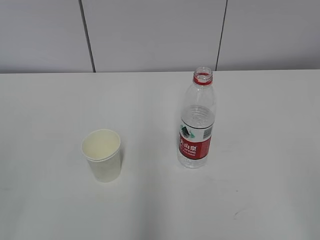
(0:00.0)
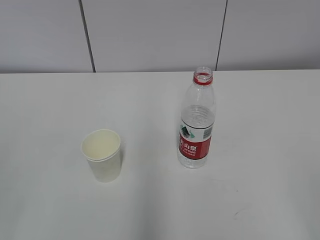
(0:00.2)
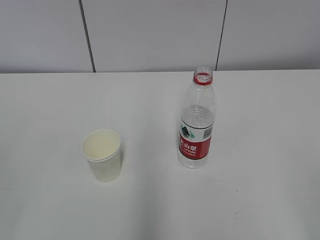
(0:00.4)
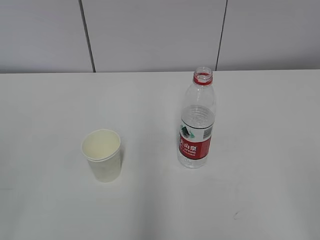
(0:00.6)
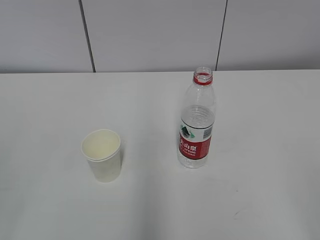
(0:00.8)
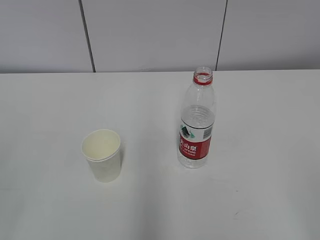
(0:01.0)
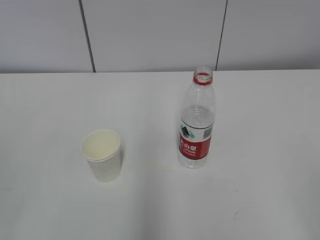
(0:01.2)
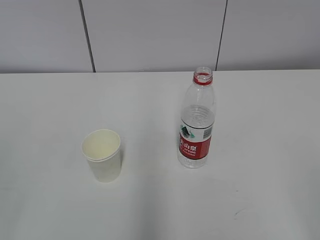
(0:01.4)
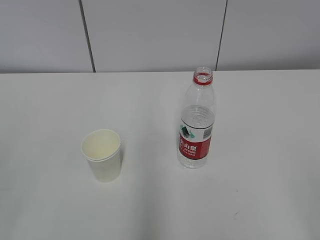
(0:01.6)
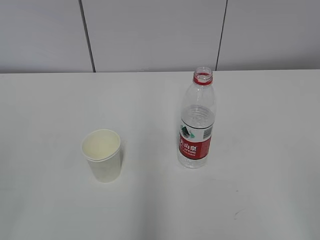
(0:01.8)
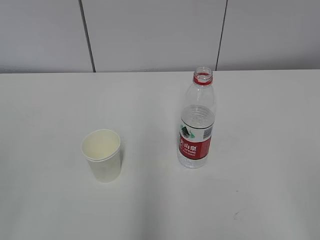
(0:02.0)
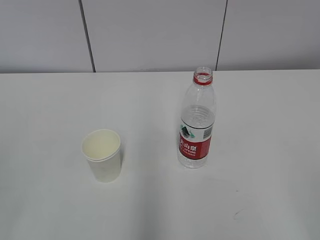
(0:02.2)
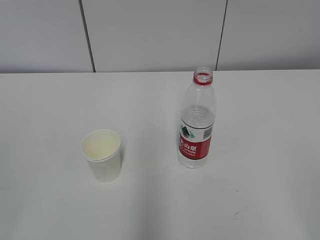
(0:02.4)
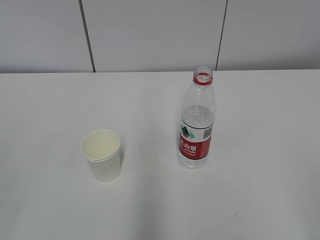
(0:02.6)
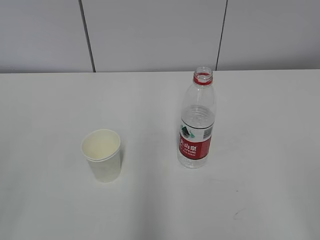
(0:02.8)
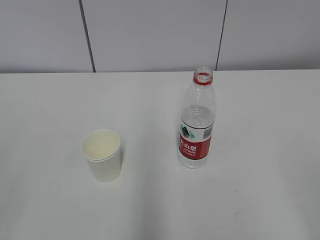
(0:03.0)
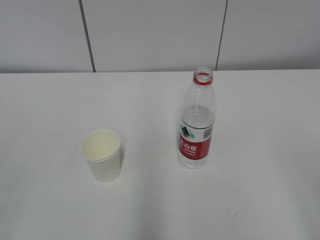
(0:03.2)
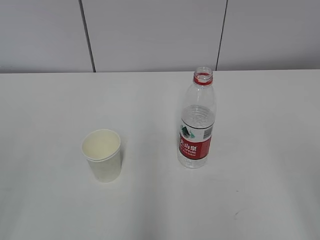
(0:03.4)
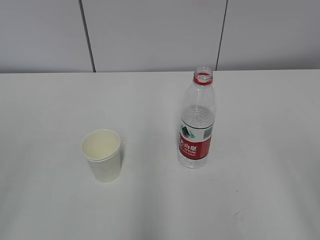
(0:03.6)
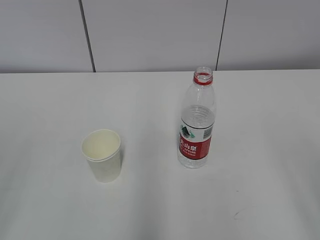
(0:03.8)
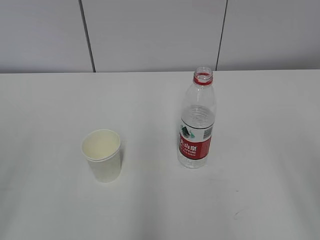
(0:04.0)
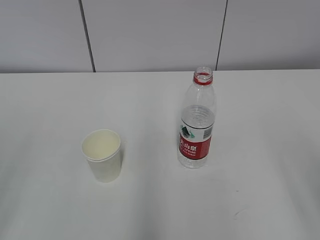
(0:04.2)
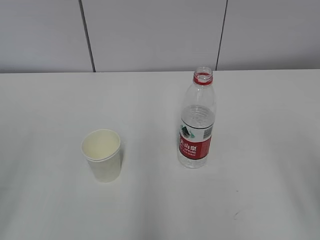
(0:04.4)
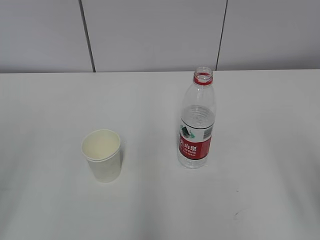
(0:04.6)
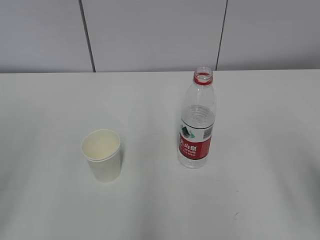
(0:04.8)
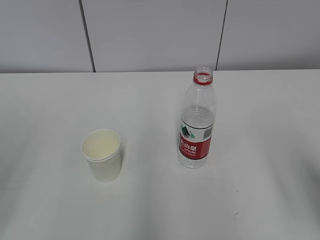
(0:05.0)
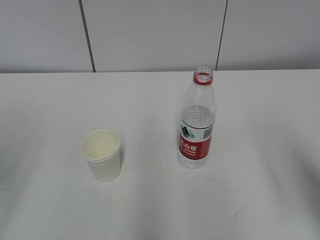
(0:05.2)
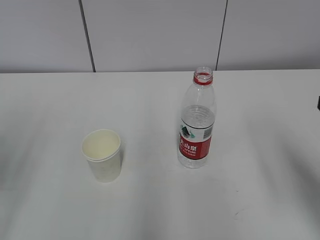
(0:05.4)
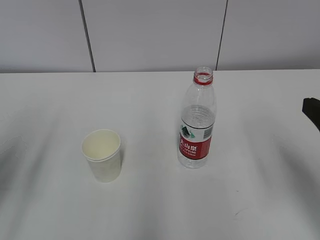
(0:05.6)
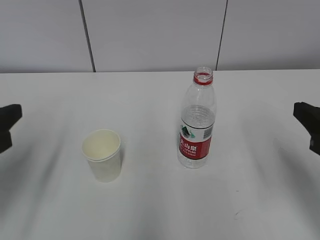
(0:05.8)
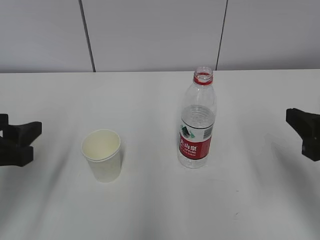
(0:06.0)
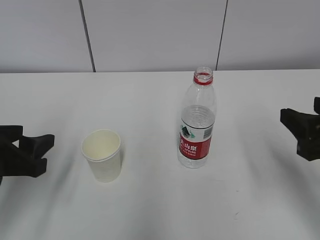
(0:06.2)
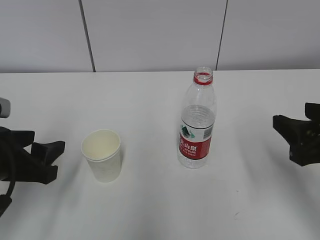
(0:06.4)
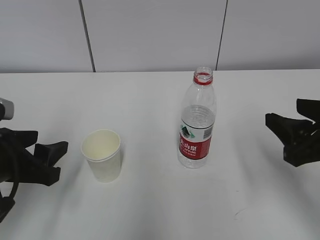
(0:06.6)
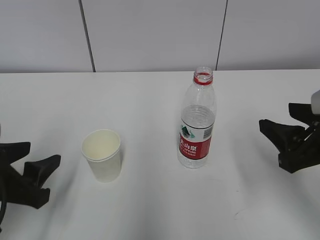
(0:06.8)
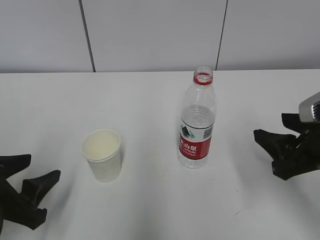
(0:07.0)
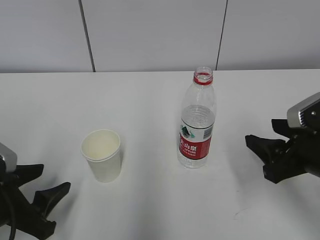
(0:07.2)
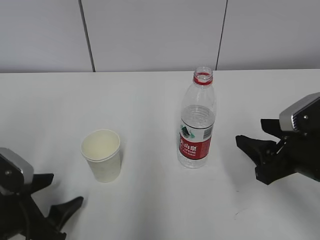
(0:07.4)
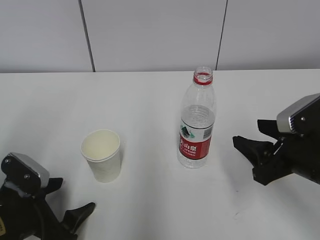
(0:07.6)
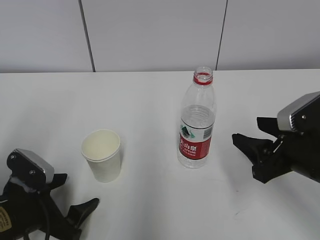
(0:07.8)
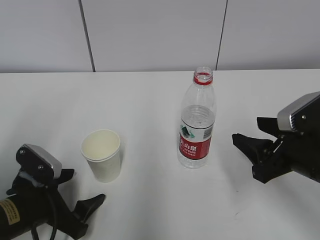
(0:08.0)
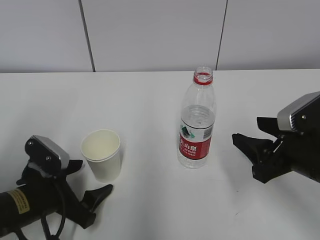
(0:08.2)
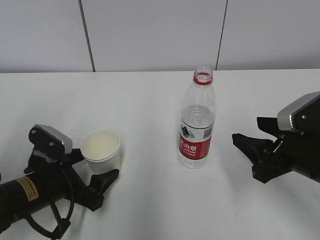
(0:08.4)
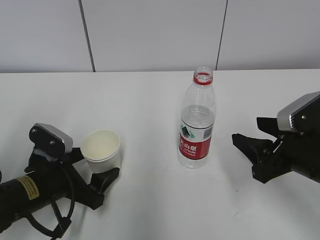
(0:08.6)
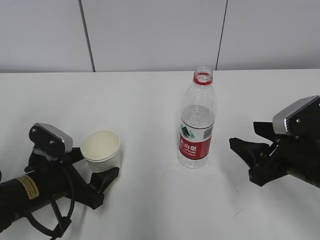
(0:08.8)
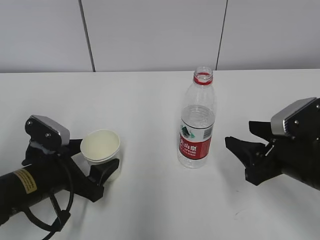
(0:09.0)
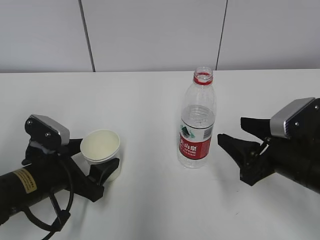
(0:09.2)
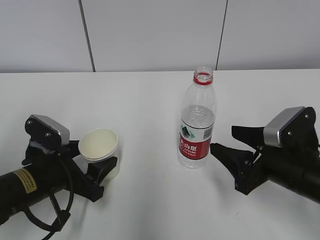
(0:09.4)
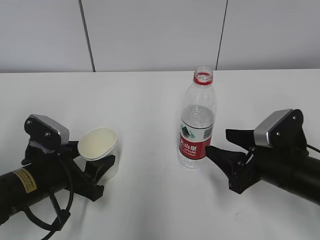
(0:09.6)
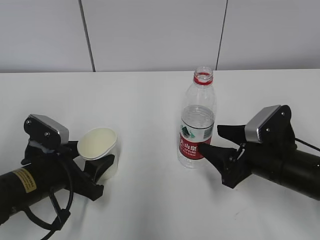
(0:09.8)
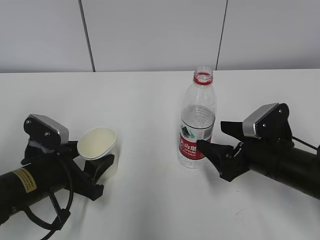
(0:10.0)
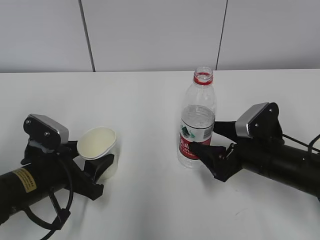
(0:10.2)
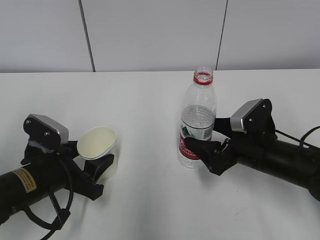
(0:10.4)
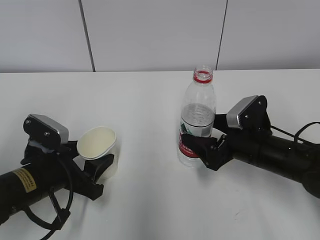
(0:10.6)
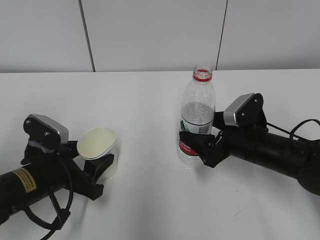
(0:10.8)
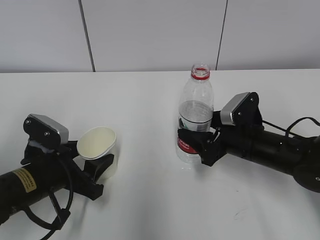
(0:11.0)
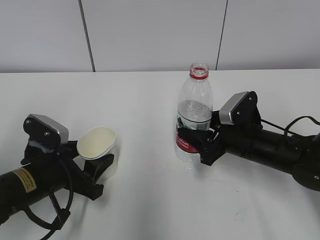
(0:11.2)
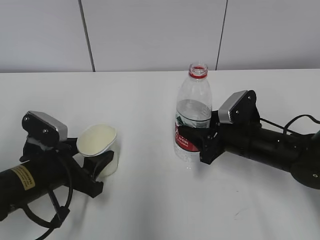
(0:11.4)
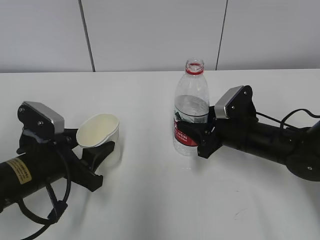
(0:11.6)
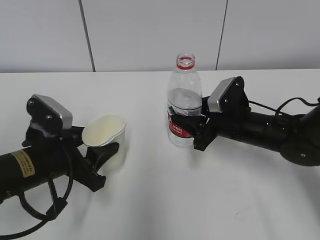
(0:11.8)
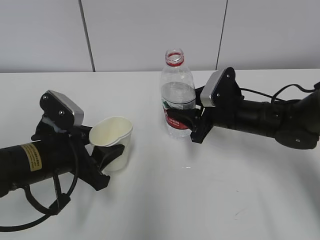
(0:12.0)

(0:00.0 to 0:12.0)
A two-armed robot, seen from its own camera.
Step, 0:00.0 - 0:09.4: Grab the paper cup with the left hand.
Step, 0:09.6 - 0:11.8: Lift the paper cup with the left hand.
0:04.4 - 0:06.0: Both grippers travel together forward and downward, about 15 cm.
0:06.0 - 0:07.6: The left gripper is displaced downward by about 15 cm, and opens its fingers; the right gripper goes approximately 5 cm downward.
0:07.6 - 0:09.0: The left gripper travels forward by some 5 cm.
0:09.0 - 0:10.4: The left gripper closes. Meanwhile the right gripper is displaced forward by about 5 cm, and opens up.
0:10.4 - 0:12.0: The right gripper travels forward by roughly 10 cm, and closes up.

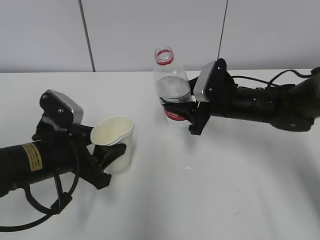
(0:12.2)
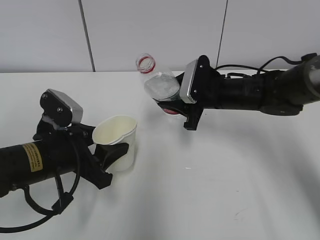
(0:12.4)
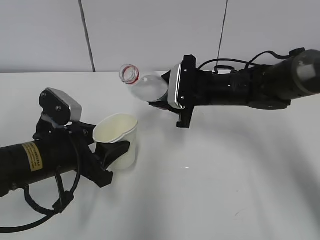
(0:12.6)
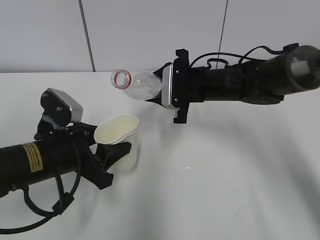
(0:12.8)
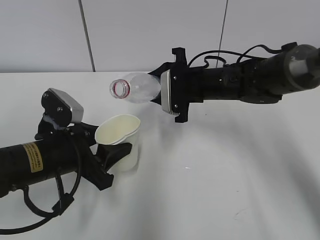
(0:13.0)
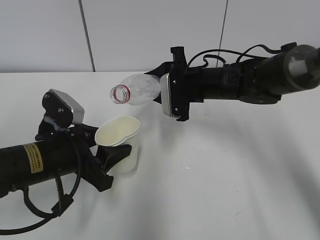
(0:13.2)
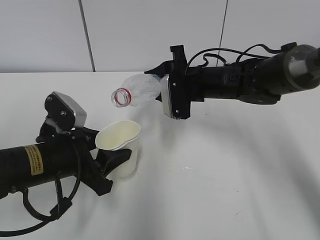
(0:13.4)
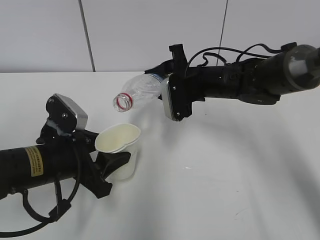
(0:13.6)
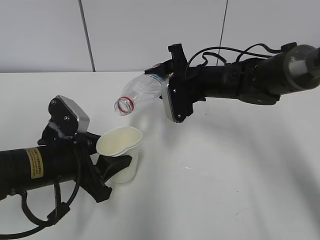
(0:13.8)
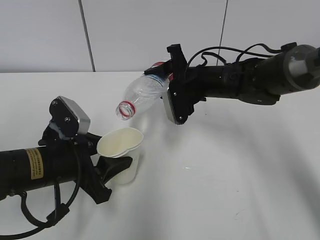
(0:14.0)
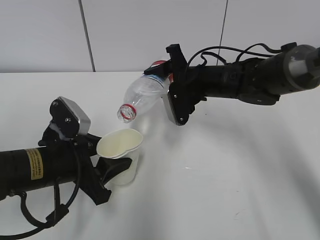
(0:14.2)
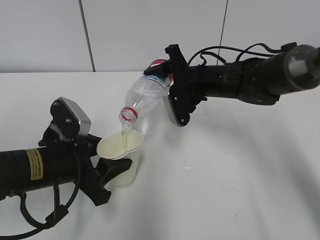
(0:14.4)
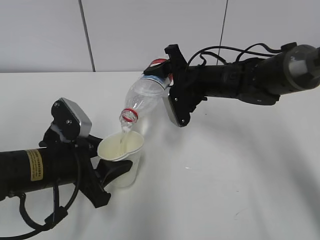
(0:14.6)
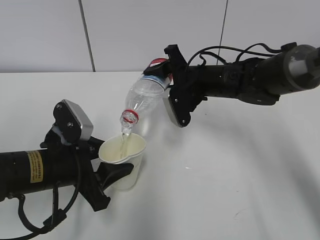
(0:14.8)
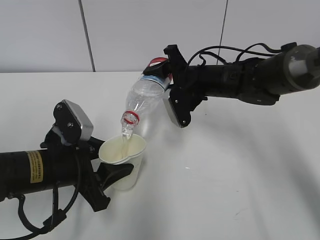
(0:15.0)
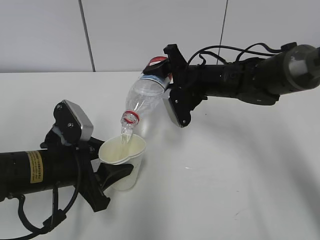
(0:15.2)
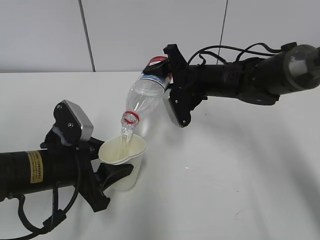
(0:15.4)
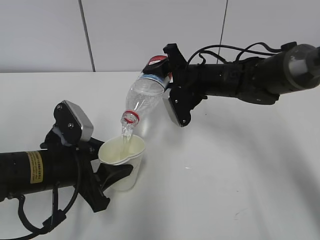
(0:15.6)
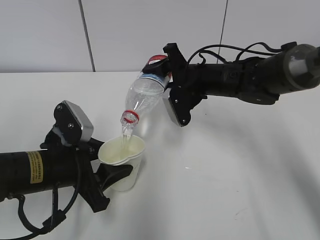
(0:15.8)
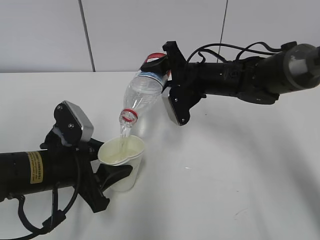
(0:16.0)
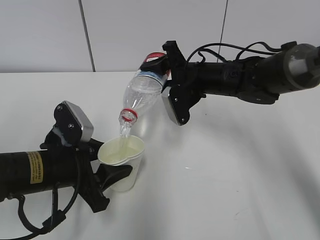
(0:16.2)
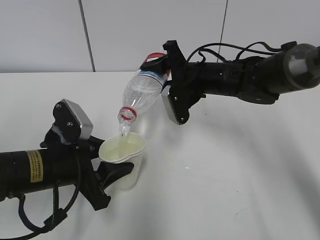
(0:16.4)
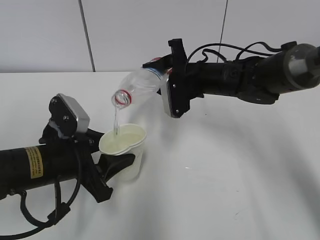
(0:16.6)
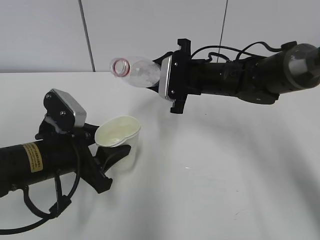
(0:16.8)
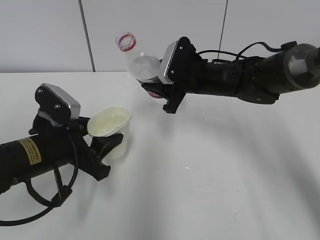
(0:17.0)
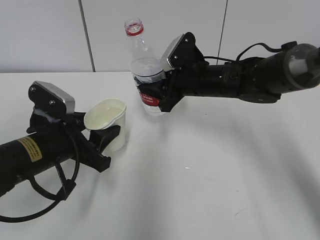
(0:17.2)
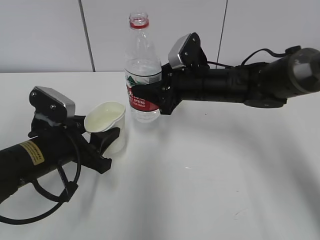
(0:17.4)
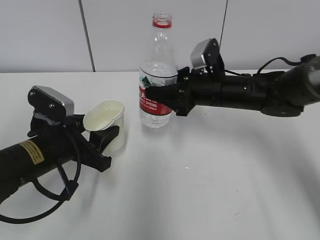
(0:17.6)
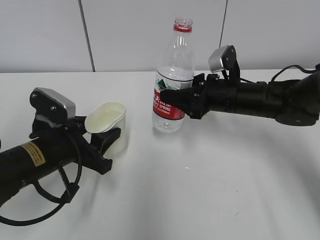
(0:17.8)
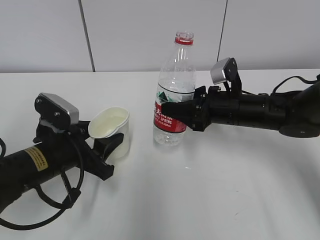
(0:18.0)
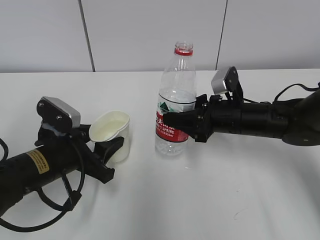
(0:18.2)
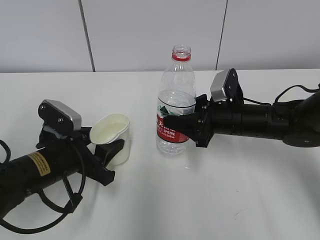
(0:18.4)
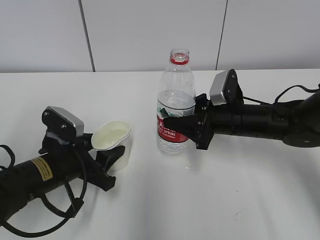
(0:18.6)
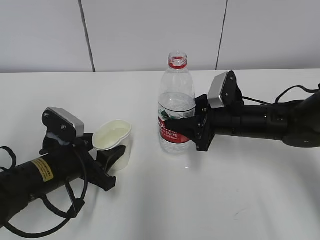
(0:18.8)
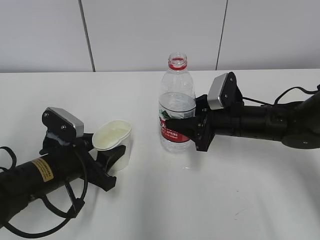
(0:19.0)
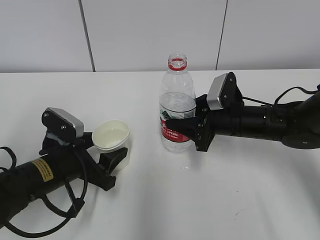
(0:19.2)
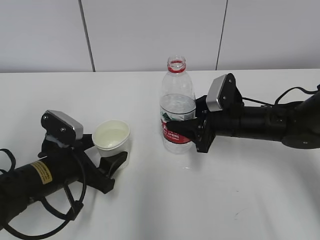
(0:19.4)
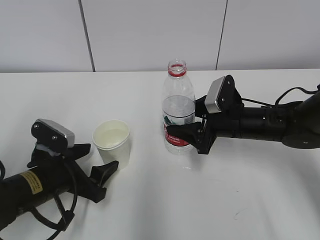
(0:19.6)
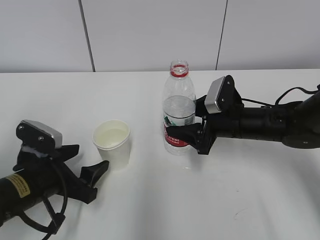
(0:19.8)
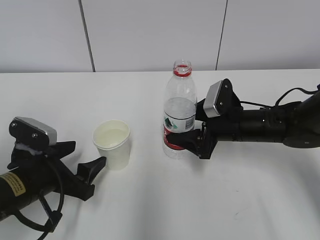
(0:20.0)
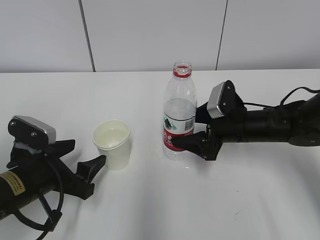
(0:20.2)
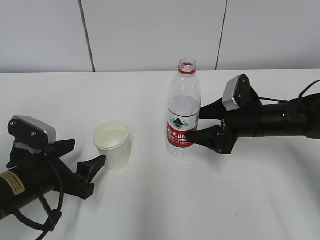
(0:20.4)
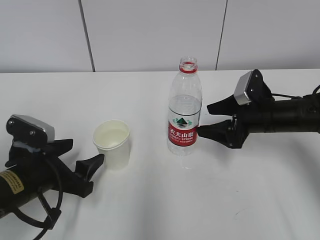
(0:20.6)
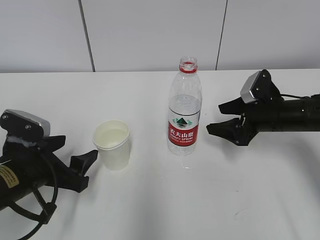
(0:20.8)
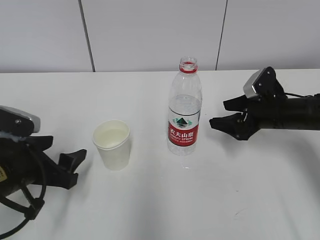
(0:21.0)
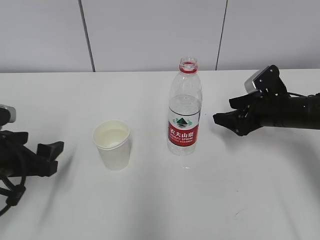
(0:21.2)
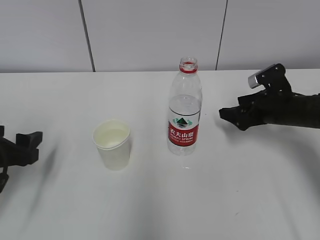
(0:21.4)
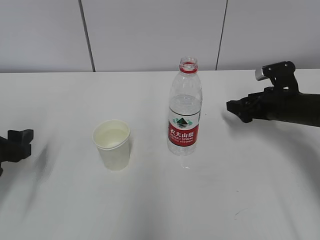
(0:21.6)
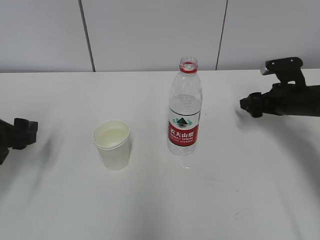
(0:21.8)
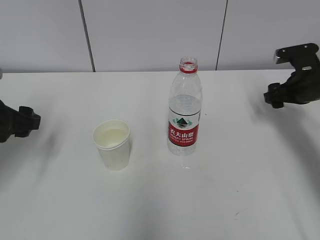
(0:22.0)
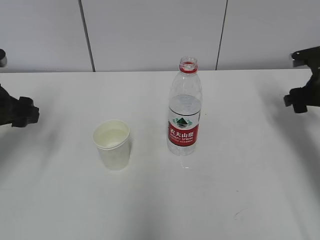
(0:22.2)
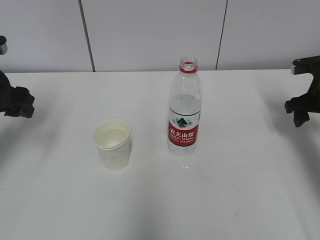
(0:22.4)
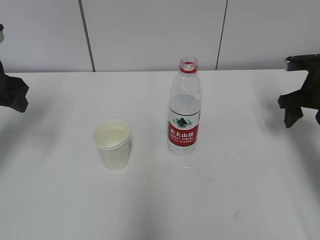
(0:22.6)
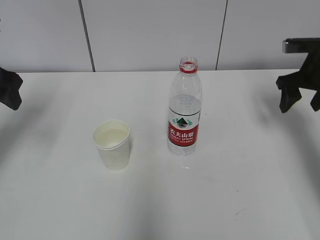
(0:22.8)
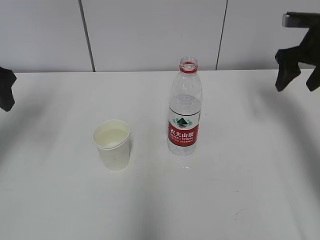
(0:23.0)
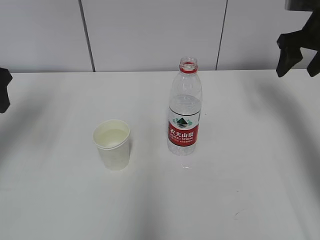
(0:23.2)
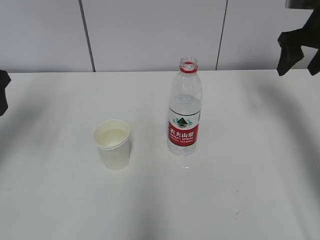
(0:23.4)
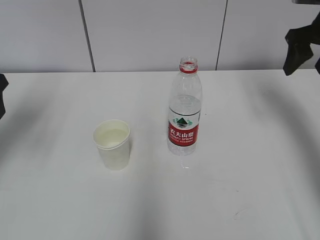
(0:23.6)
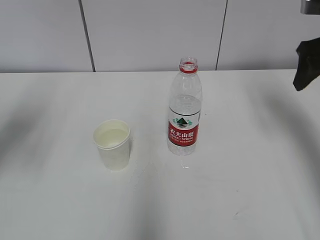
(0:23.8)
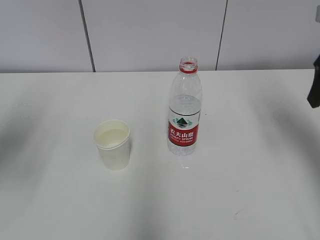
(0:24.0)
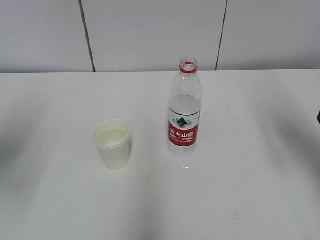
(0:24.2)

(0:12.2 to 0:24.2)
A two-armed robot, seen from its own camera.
Step, 0:12.2 - 0:13.8: Fill water with the left hand.
Step, 0:12.2 - 0:13.8: Pour water with the right hand.
Step, 0:14.0 - 0:14.6: Collect water with the right hand.
Step, 0:14.8 - 0:16.0: Place the paper cup with the left hand.
0:12.2 - 0:13.8: The right gripper shifts by some 5 cm.
0:13.8 - 0:16.6: The grippers move only a little.
0:16.6 - 0:18.2: The right gripper is displaced backward, to the right and downward by roughly 10 cm.
0:18.2 - 0:19.8: The right gripper opens up. The left gripper opens up.
0:19.8 - 0:21.2: The left gripper is displaced to the left by roughly 5 cm; the right gripper shifts roughly 10 cm to the right.
0:21.2 - 0:22.6: The left gripper goes about 15 cm upward, forward and to the left; the right gripper travels to the right and upward by roughly 10 cm.
0:22.6 - 0:24.2: The left gripper heads backward, covering approximately 10 cm. Meanwhile the right gripper shifts some 20 cm upward and backward.
